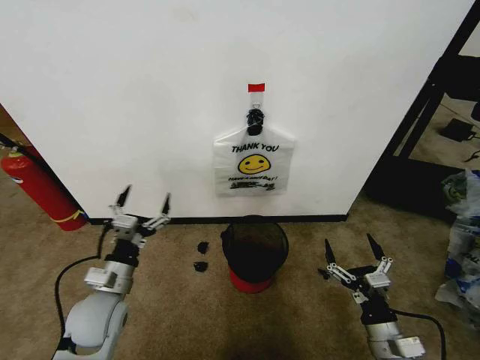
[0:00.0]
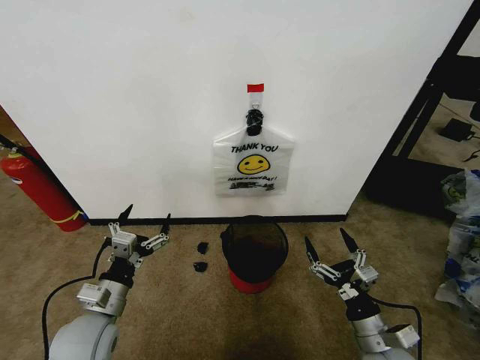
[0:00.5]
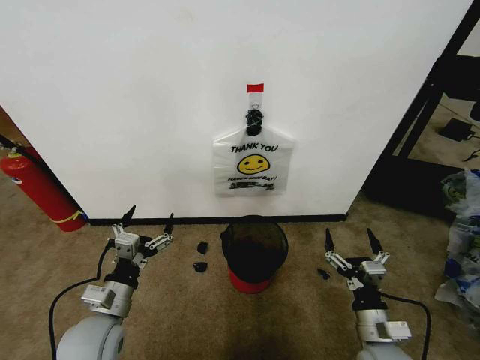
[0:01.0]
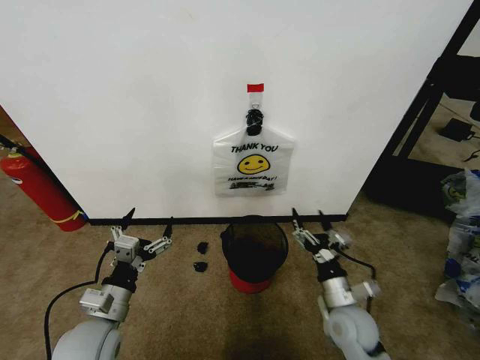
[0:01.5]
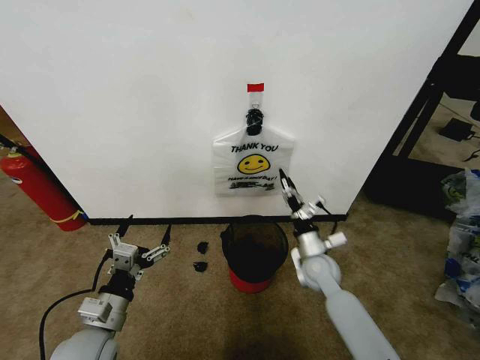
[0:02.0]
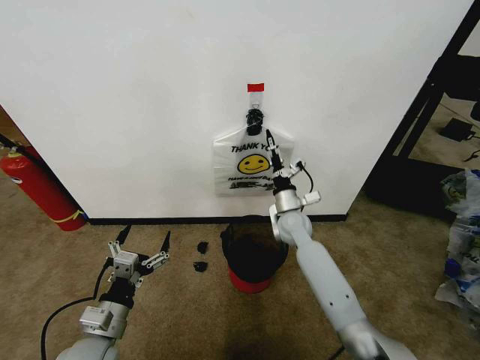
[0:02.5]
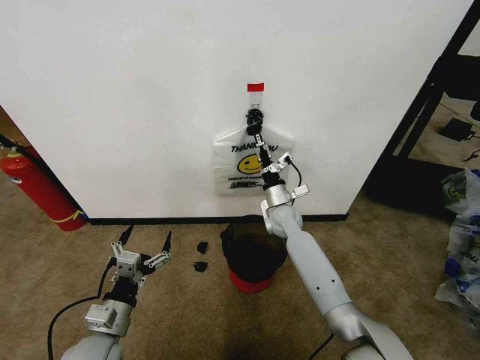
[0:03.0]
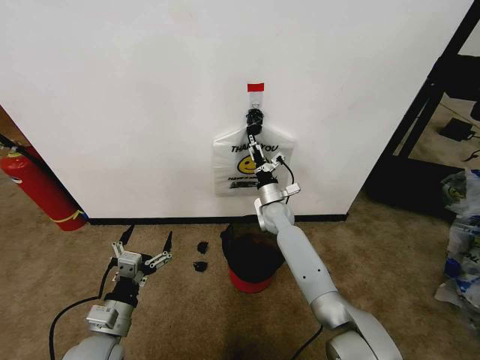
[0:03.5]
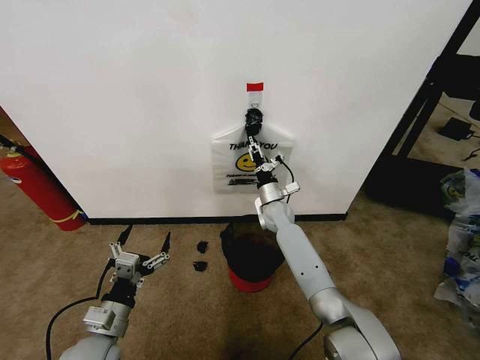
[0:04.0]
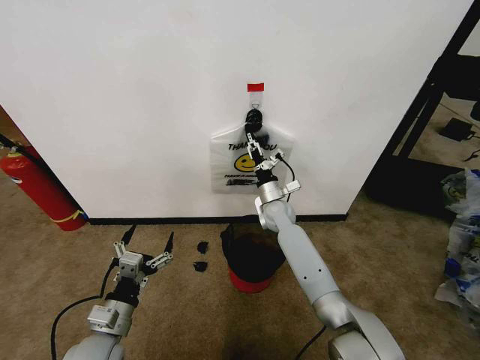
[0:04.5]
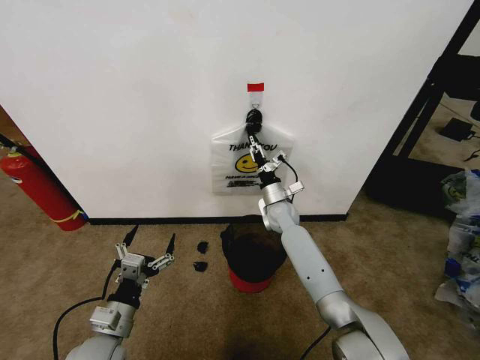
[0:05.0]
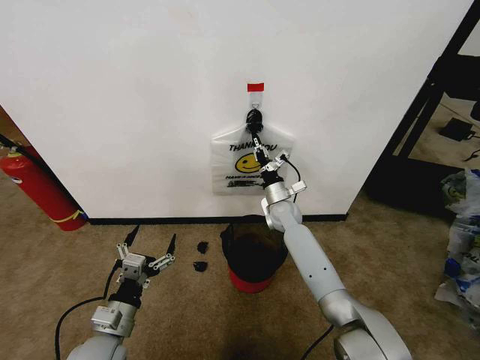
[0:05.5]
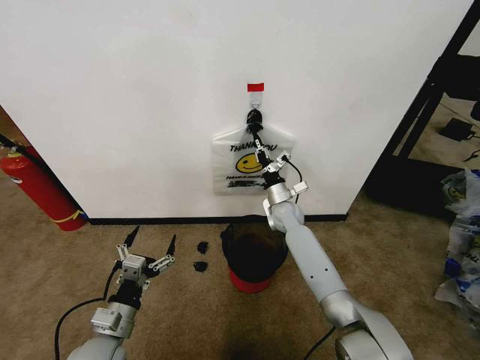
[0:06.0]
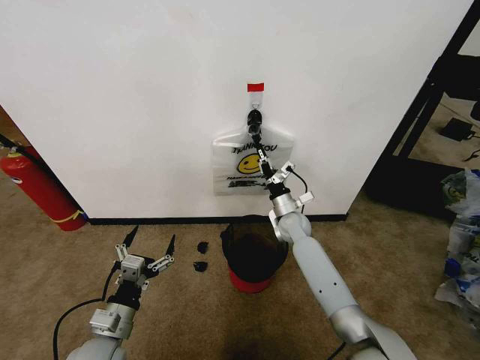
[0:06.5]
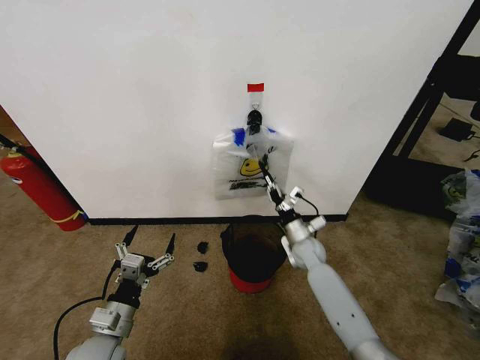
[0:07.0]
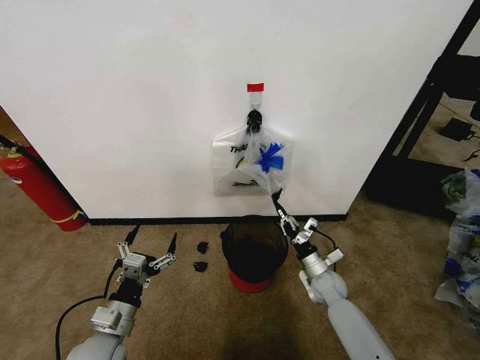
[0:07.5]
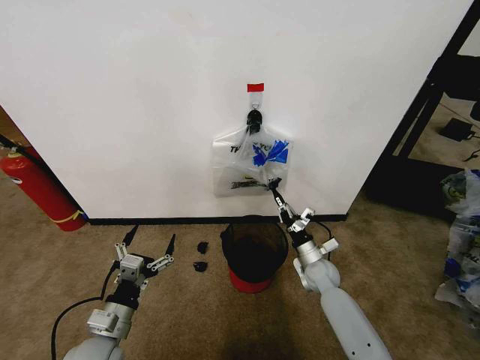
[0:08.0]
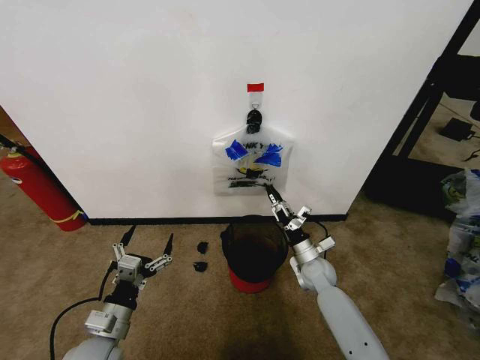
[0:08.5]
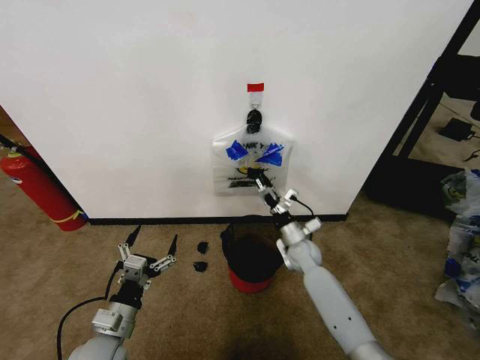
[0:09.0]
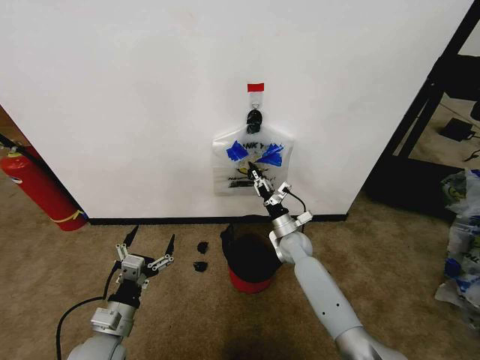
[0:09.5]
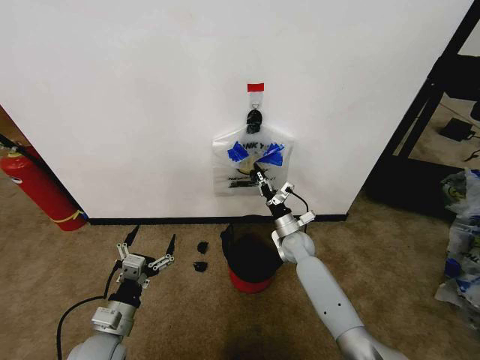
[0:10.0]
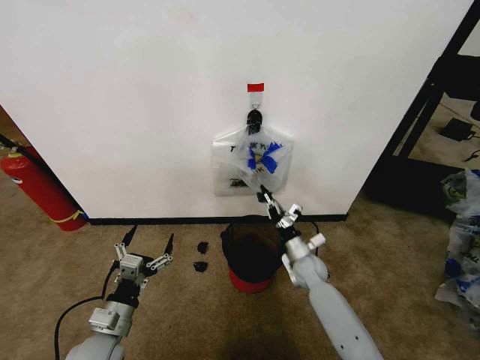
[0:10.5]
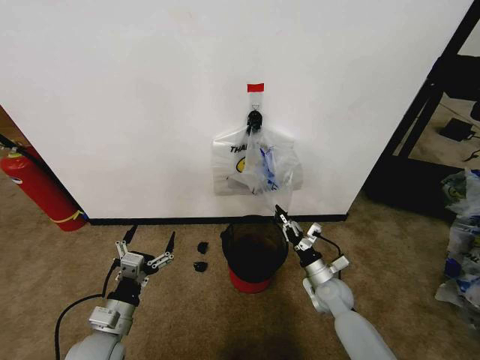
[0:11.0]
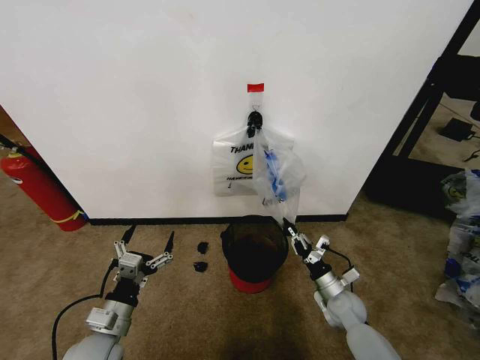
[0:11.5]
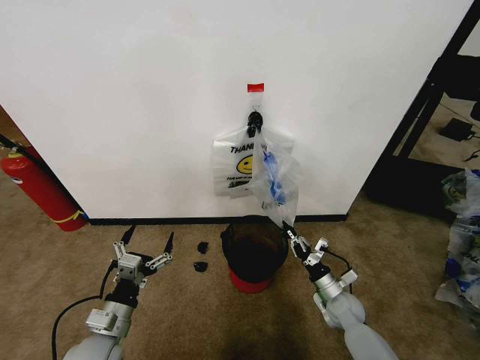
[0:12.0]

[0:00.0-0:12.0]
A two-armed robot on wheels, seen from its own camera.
Task of the whole recording: Pick up the garbage bag from the wall and place it over the trash bin.
0:02.0 to 0:04.0: The right gripper moves forward and to the left, some 20 cm, and closes its fingers.
0:04.0 to 0:06.0: The right gripper closes up.
0:06.0 to 0:08.0: The right gripper moves backward, downward and to the right, about 20 cm.
0:08.0 to 0:10.0: The right gripper travels forward and to the left by approximately 10 cm, and opens, then closes once more.
0:10.0 to 0:12.0: The right gripper shifts some 20 cm backward, to the right and downward.

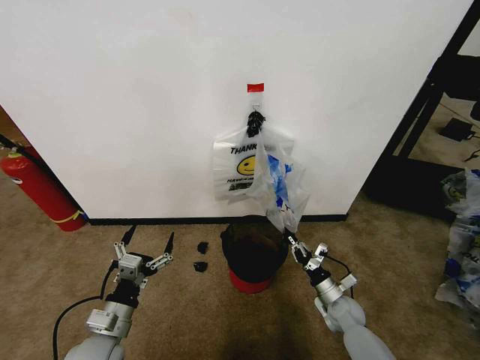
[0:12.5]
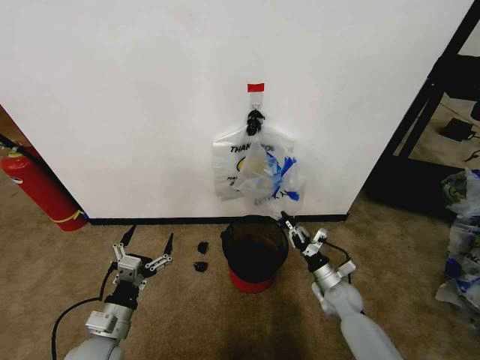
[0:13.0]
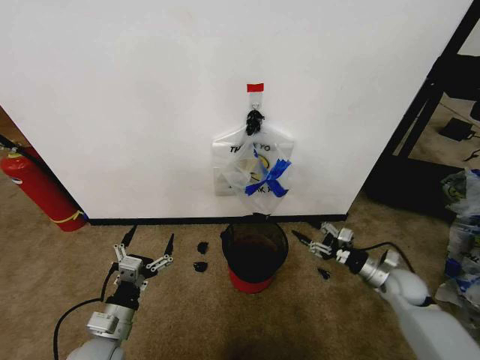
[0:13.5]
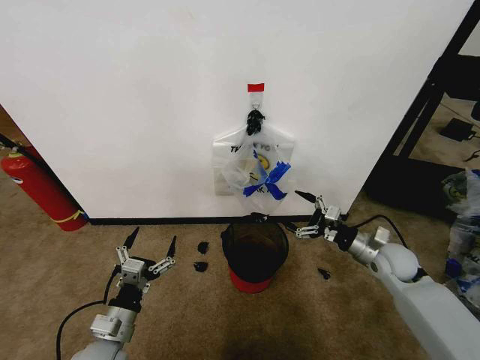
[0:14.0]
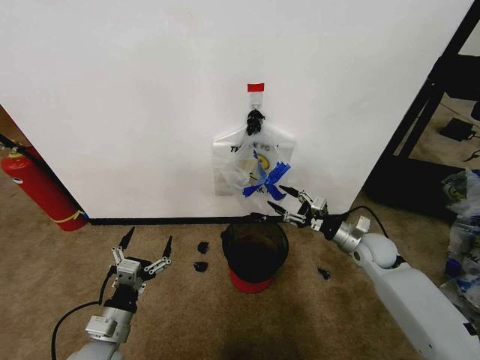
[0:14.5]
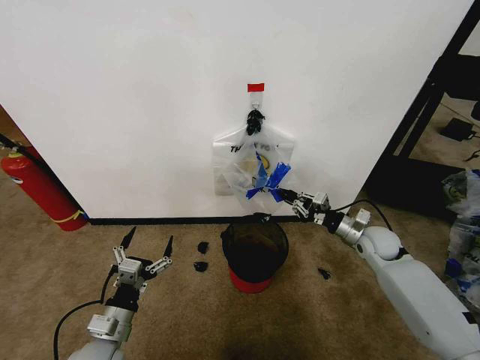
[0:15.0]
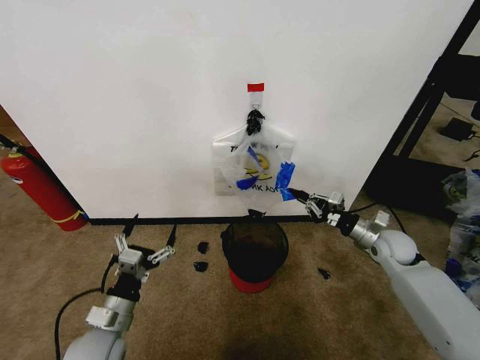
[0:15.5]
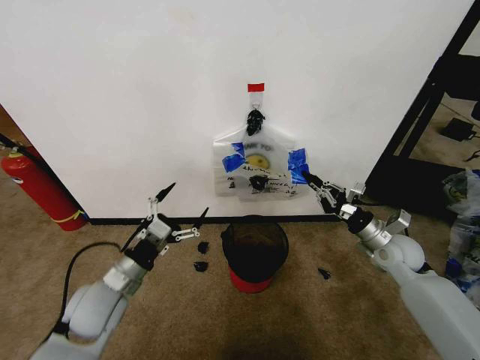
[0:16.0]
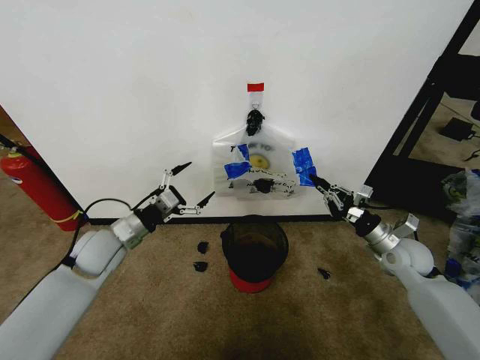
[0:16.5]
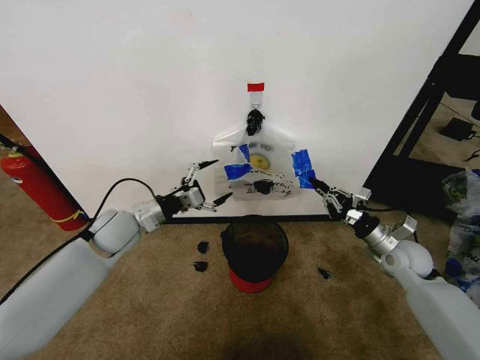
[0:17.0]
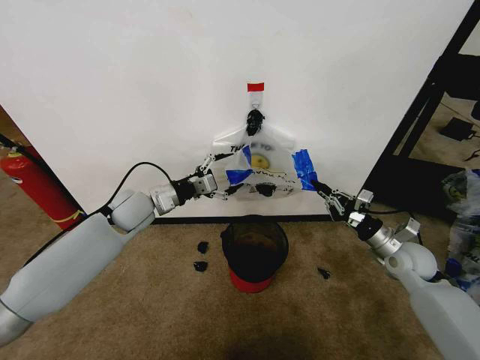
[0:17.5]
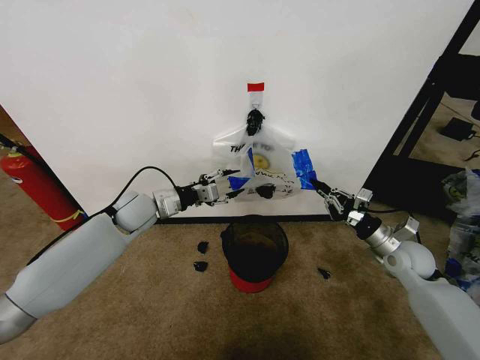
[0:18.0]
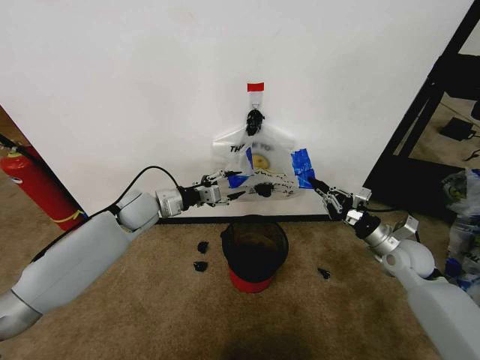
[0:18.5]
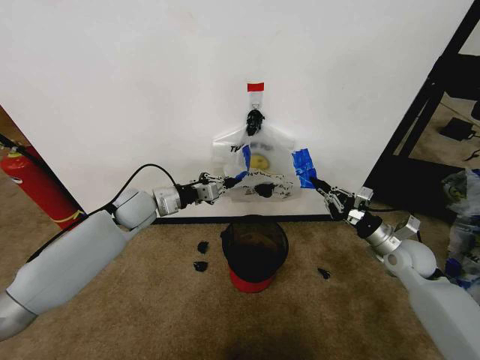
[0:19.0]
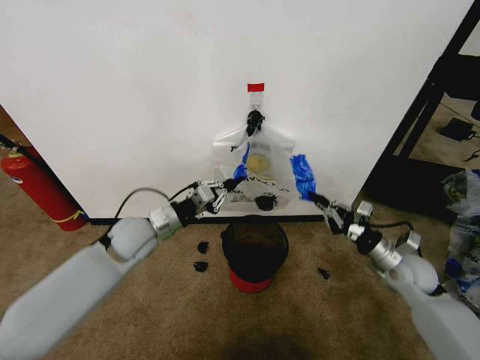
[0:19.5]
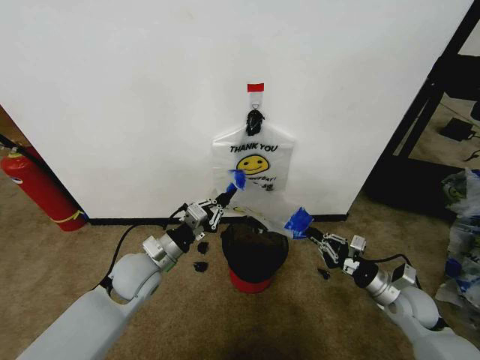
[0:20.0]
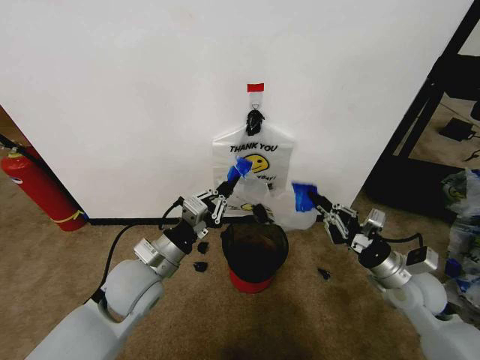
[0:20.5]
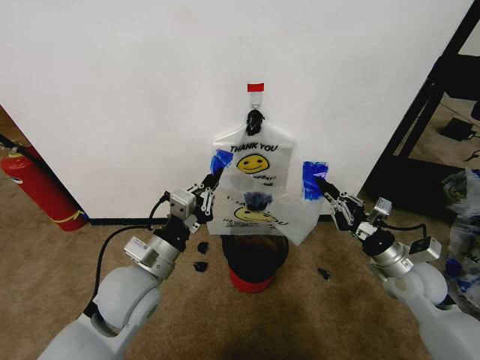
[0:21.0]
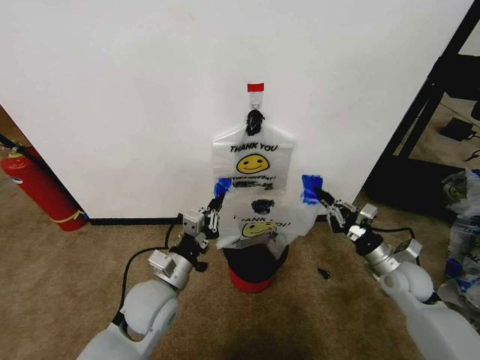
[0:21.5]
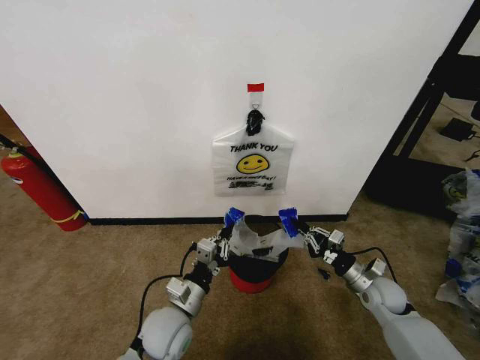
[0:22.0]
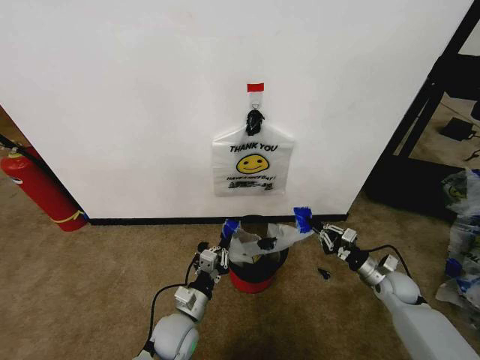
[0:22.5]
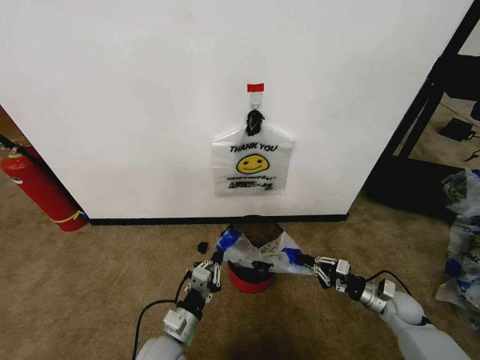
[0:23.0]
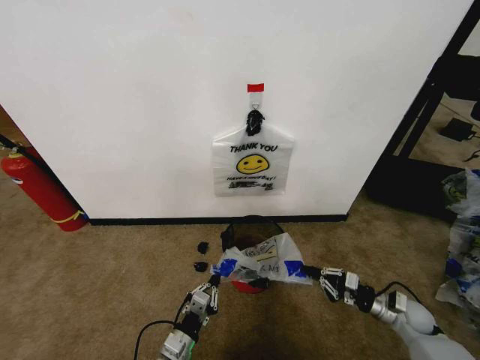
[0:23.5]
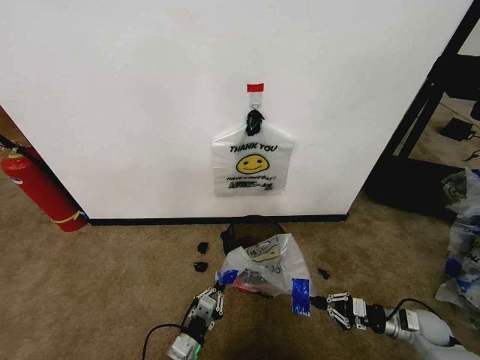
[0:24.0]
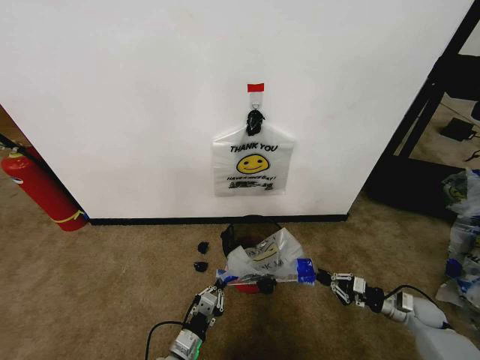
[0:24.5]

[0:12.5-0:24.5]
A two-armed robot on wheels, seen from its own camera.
Task of the whole recording: Pick up the garbage bag from the wall and place it over the trash bin.
0:12.5 to 0:14.5: The right gripper shifts about 20 cm upward and forward, and opens its fingers.
0:14.5 to 0:16.5: The right gripper goes approximately 5 cm to the right, and closes its fingers; the left gripper moves forward and upward, roughly 20 cm.
0:16.5 to 0:18.5: The left gripper moves forward and to the right, roughly 10 cm, and closes.
0:18.5 to 0:20.5: The left gripper is displaced backward by approximately 20 cm, and closes up. Meanwhile the right gripper travels backward by roughly 10 cm.
0:20.5 to 0:22.5: The right gripper is displaced downward, forward and to the right by approximately 15 cm, while the left gripper heads downward, covering some 20 cm.
0:22.5 to 0:24.5: The right gripper shifts about 10 cm to the right and downward. The left gripper heads backward and downward, covering some 10 cm.

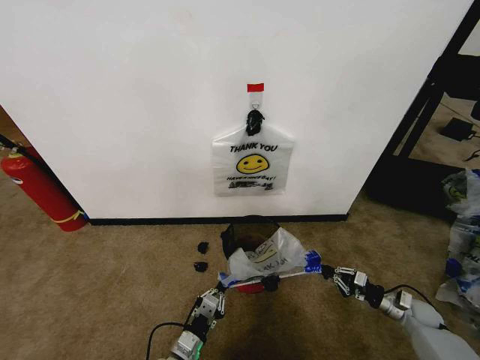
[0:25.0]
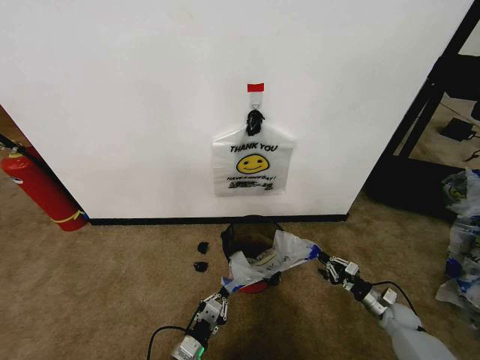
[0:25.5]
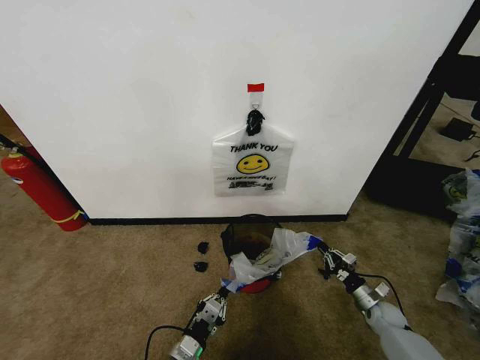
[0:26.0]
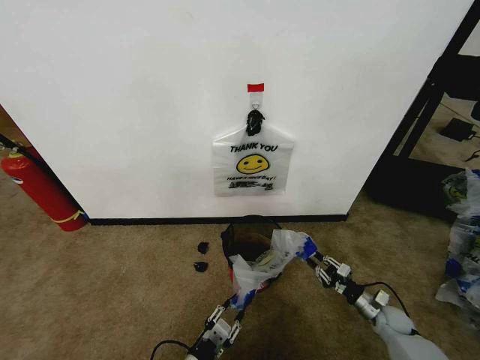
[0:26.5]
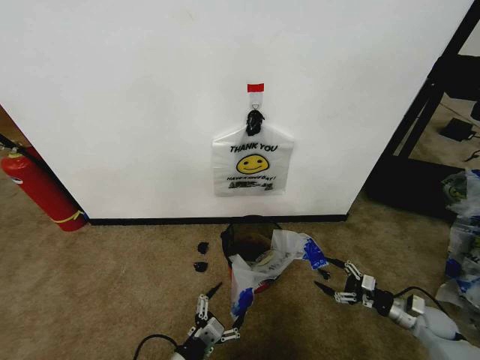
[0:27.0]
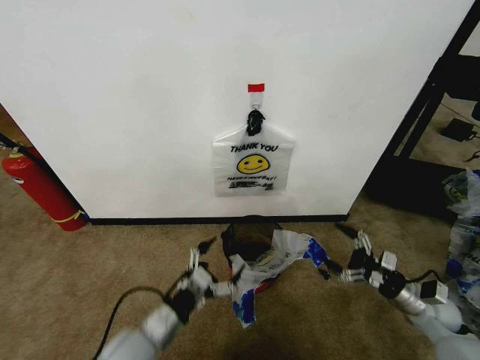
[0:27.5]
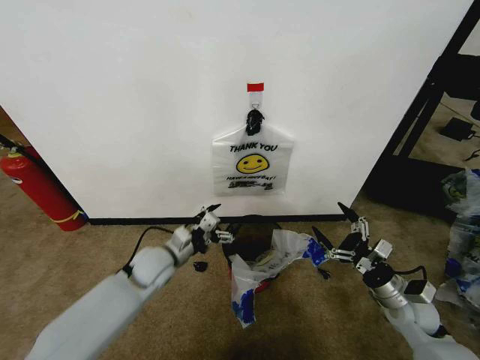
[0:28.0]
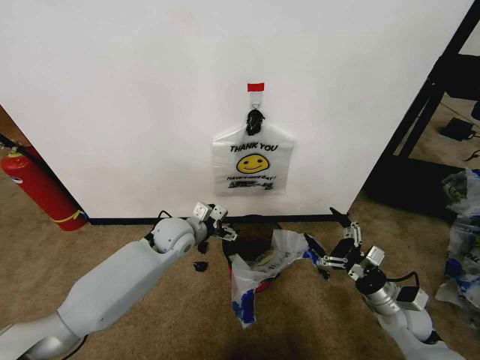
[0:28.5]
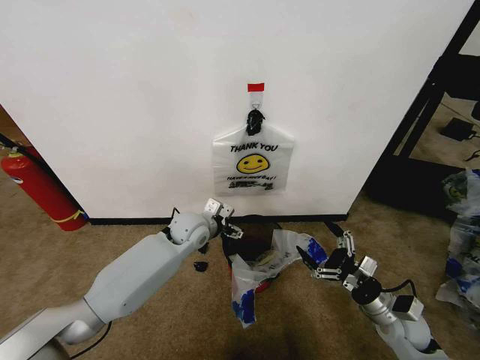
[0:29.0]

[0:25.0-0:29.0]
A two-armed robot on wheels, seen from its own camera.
Task of the whole recording: Pick up the garbage bag from the wall and place it over the trash bin.
0:25.0 to 0:27.0: The left gripper goes roughly 10 cm upward and backward, and opens its fingers. The right gripper goes to the left and returns, about 10 cm each way, and opens up.
0:27.0 to 0:29.0: The left gripper is displaced forward and upward by roughly 35 cm; the right gripper heads to the left and upward, covering approximately 15 cm.
